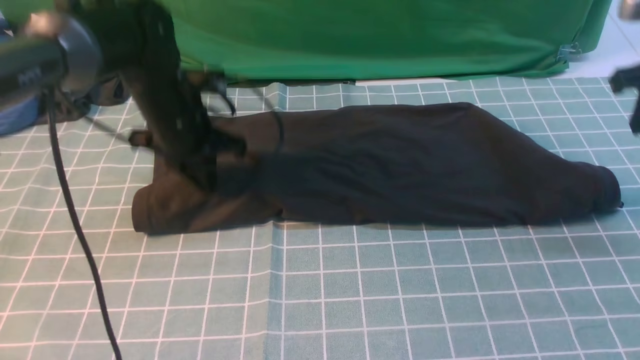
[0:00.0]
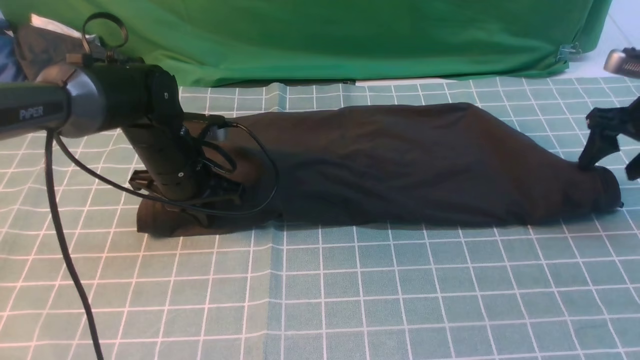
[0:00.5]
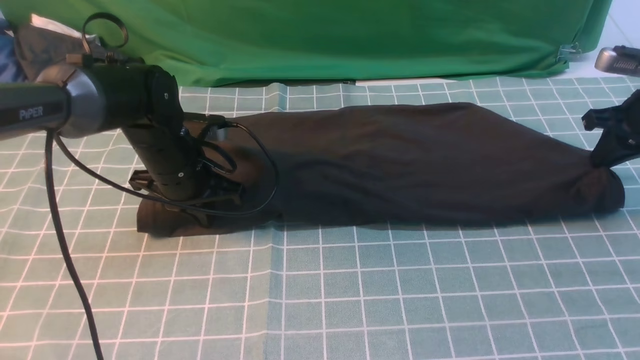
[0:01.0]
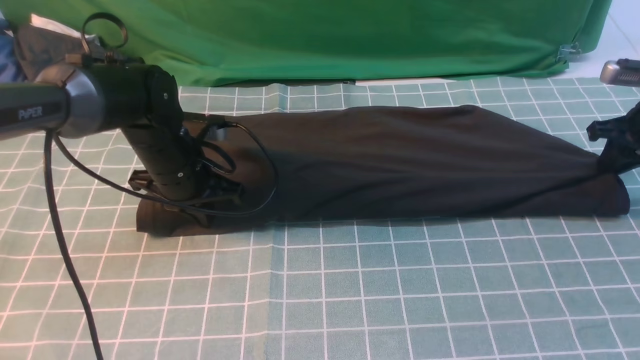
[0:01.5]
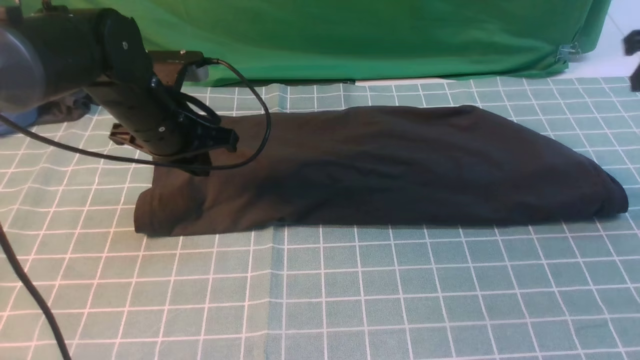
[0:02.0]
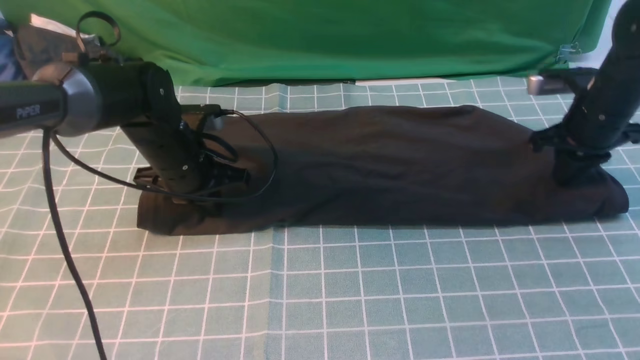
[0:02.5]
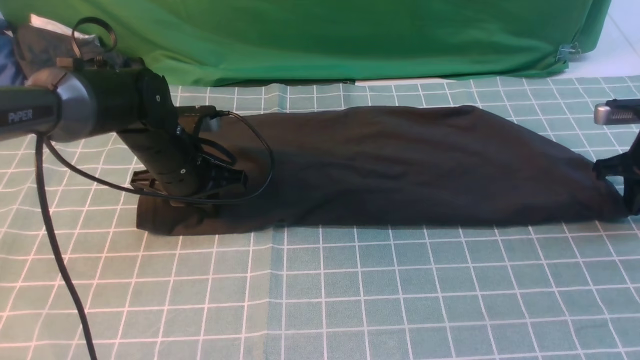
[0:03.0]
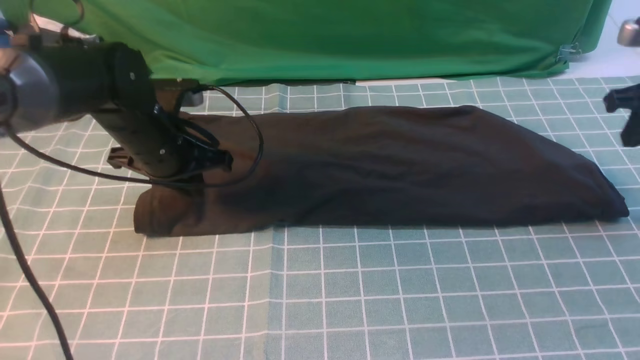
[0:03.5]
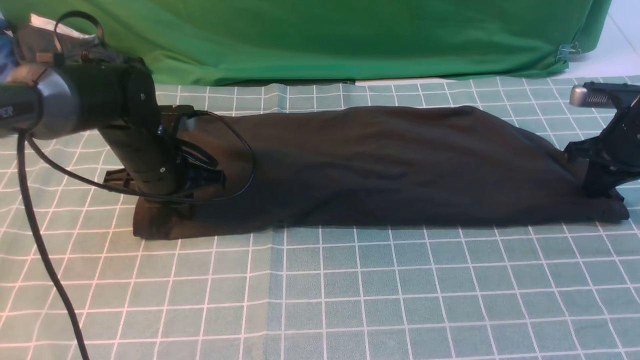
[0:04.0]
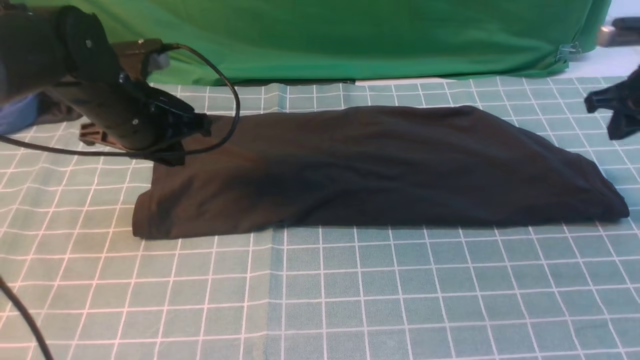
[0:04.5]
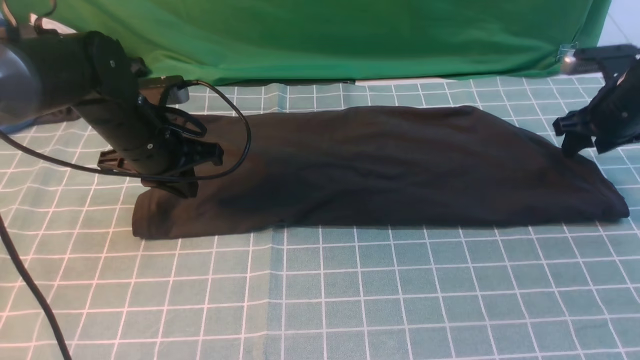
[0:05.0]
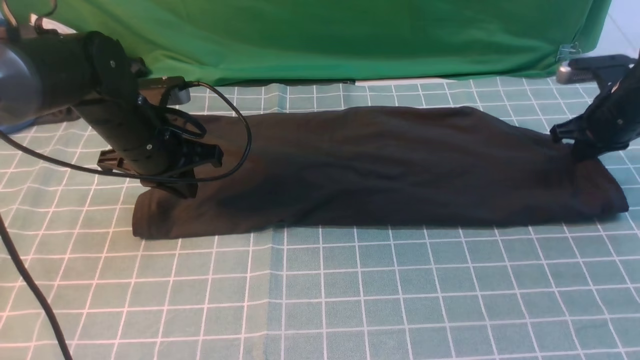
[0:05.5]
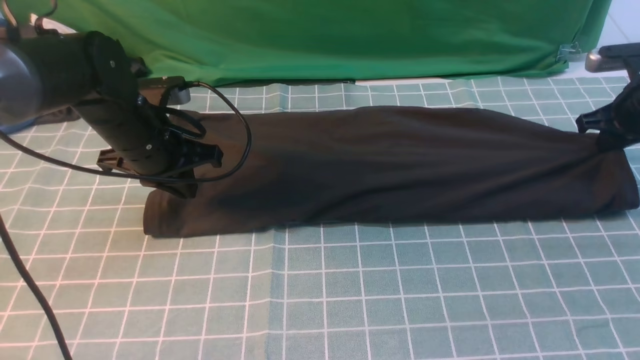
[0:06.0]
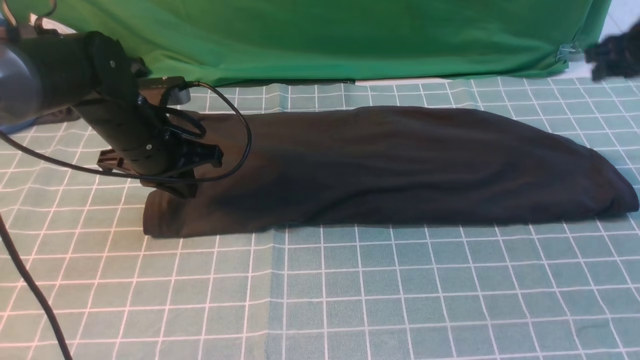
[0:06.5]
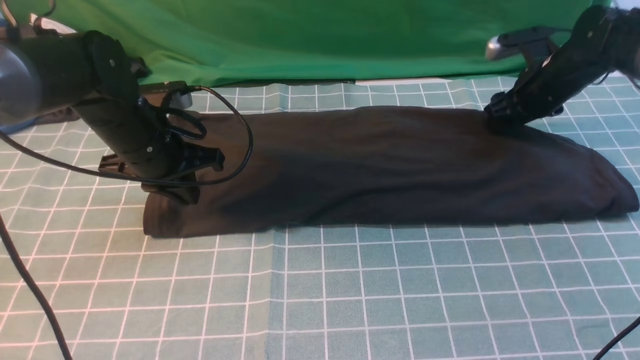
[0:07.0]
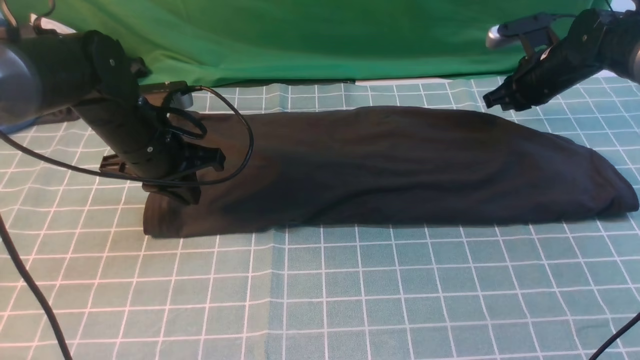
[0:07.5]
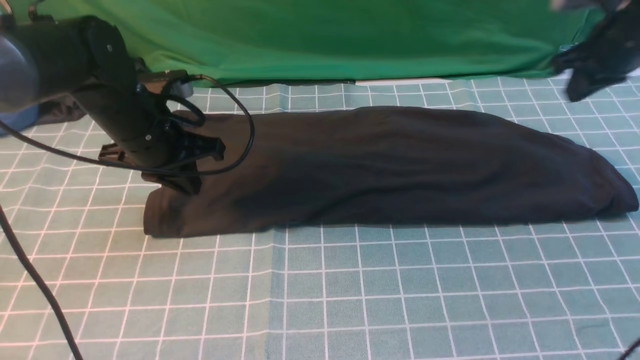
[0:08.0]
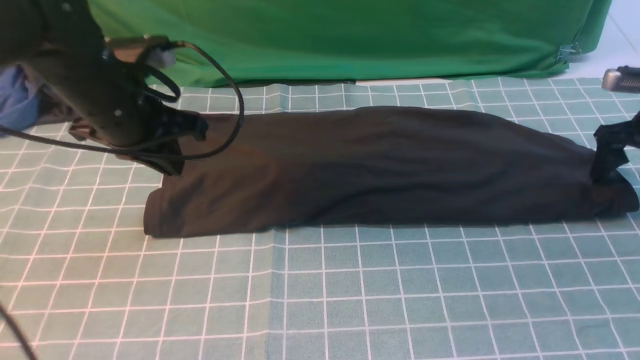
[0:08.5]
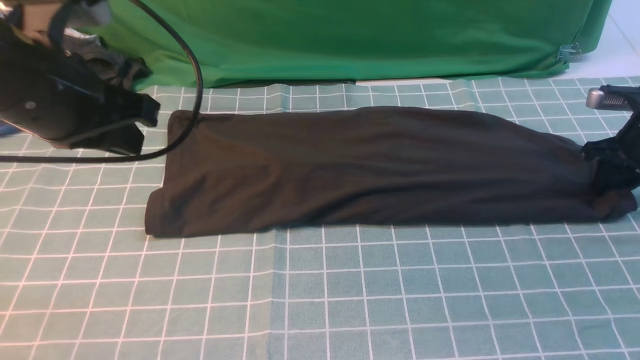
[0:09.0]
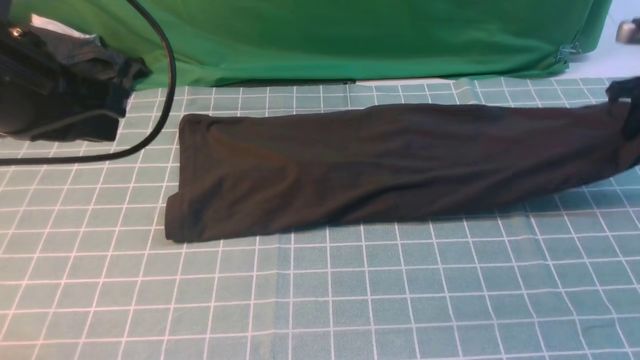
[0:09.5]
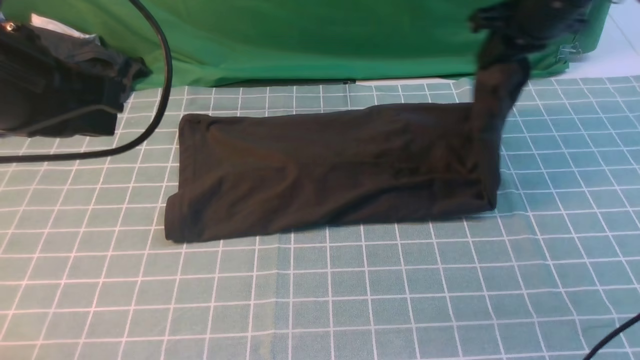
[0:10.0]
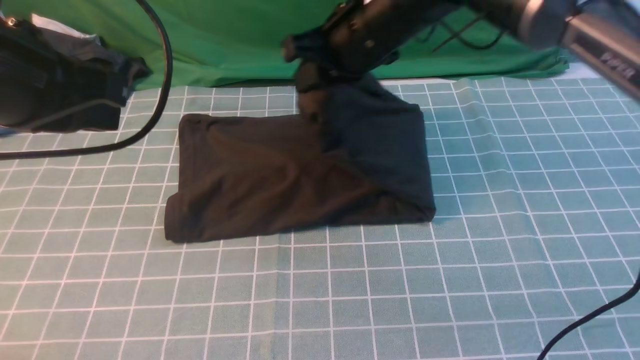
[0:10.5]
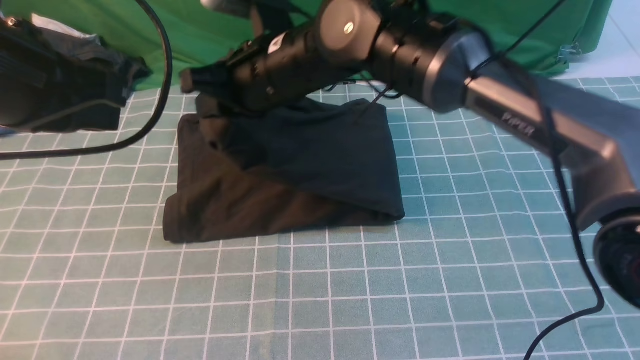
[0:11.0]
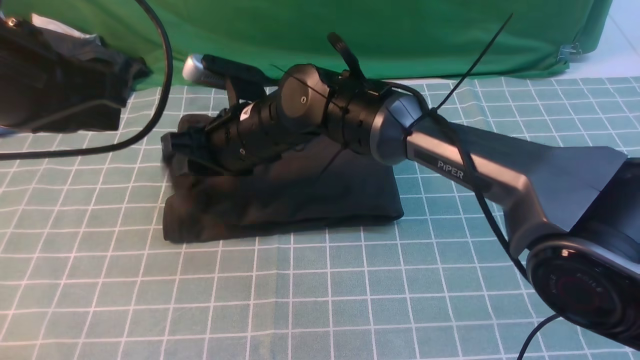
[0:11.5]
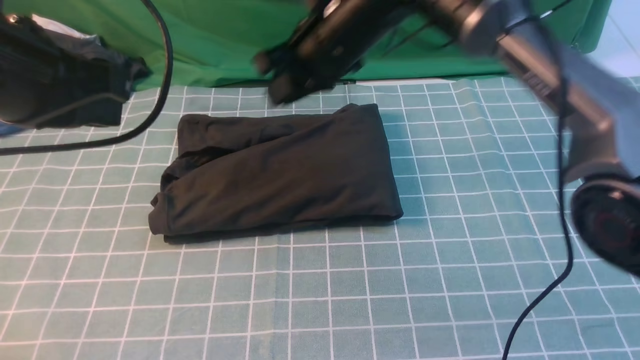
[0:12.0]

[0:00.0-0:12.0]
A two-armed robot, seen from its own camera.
Step, 0:00.0 to 0:09.0: use the right arm to clamp the right edge of the fabric.
Step, 0:09.5 to 0:11.5: use the right arm to drag the right edge of the fabric to the left and folds it over the left edge.
0:00.0 to 0:02.0: The right gripper moves roughly 10 cm downward and comes back, and opens, then closes again.
0:02.0 to 0:04.0: The left gripper ends up approximately 5 cm from where it was. The right gripper swings up and down, approximately 10 cm each way, with 2 reversals.
0:04.0 to 0:06.0: The right gripper opens up.
0:06.0 to 0:08.0: The right gripper moves upward, about 5 cm, travels to the left and back again, approximately 10 cm each way, and opens, then closes once more.
0:08.0 to 0:10.0: The right gripper shifts approximately 15 cm to the left and upward, and opens and closes again; the left gripper shifts some 20 cm upward and backward.
0:10.0 to 0:12.0: The right gripper is displaced to the left by some 20 cm, and opens, then closes once more.

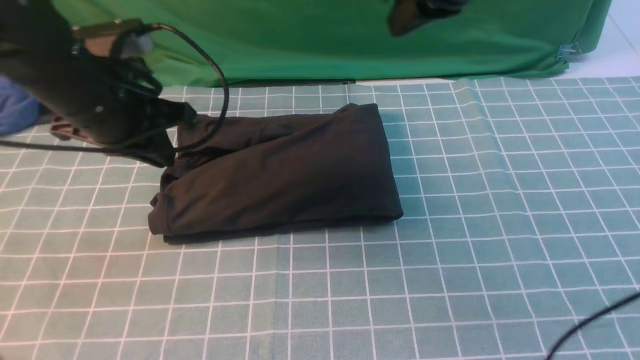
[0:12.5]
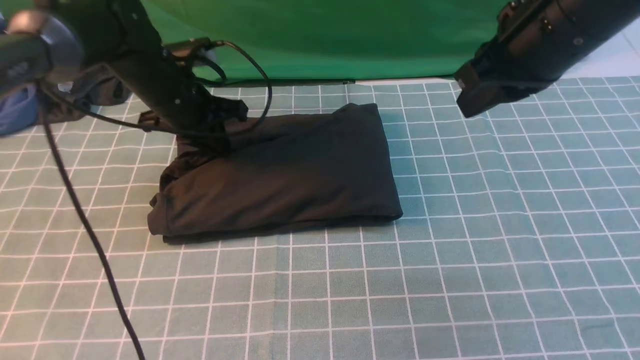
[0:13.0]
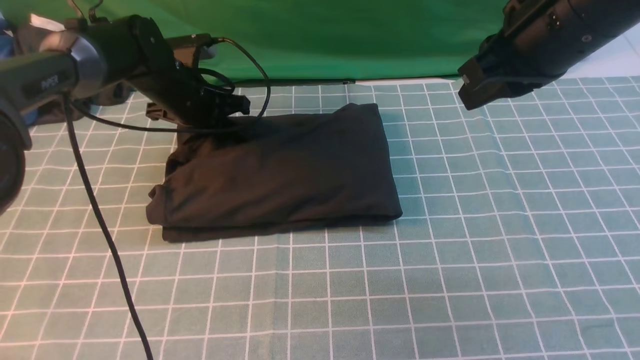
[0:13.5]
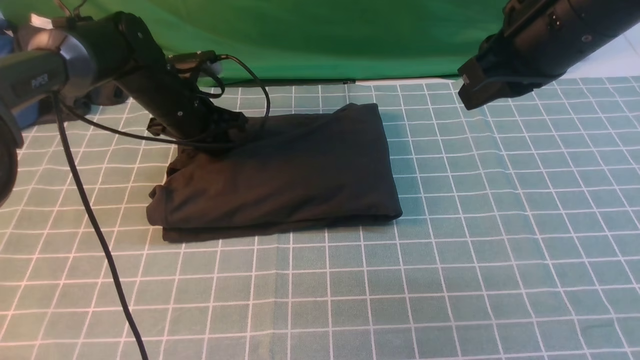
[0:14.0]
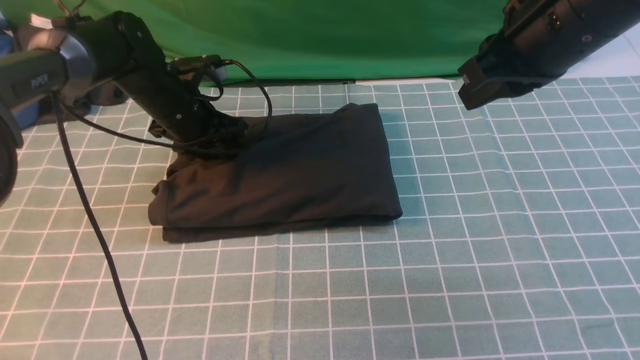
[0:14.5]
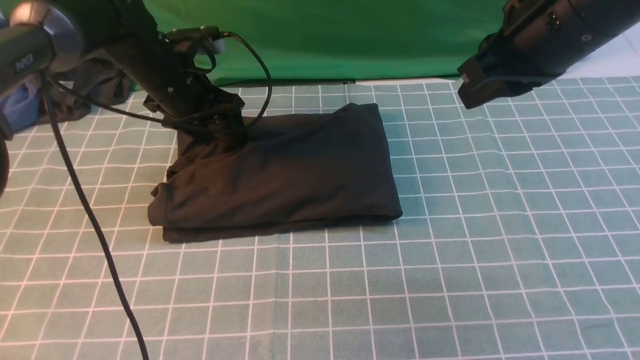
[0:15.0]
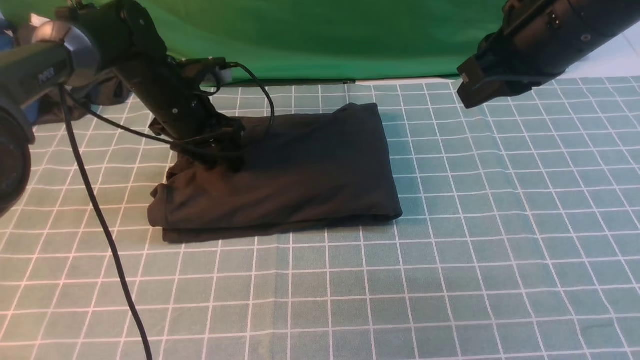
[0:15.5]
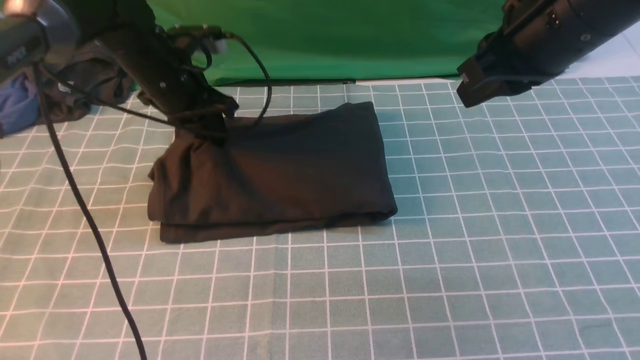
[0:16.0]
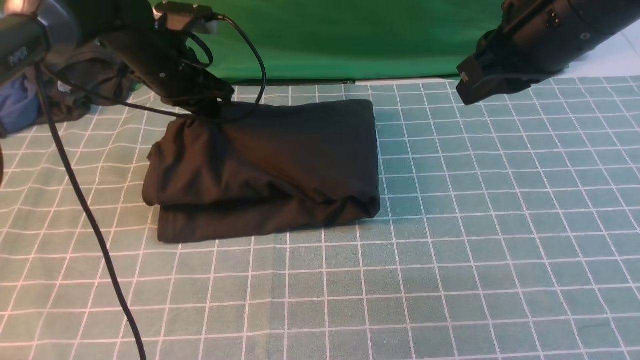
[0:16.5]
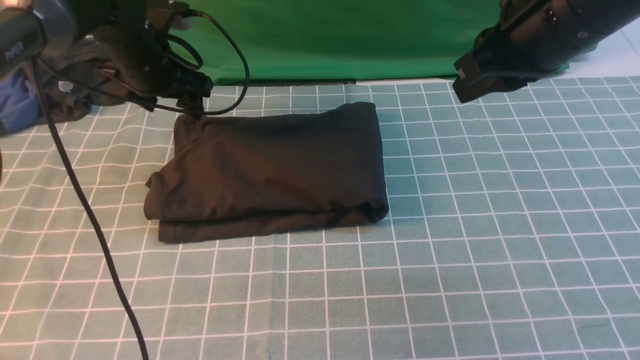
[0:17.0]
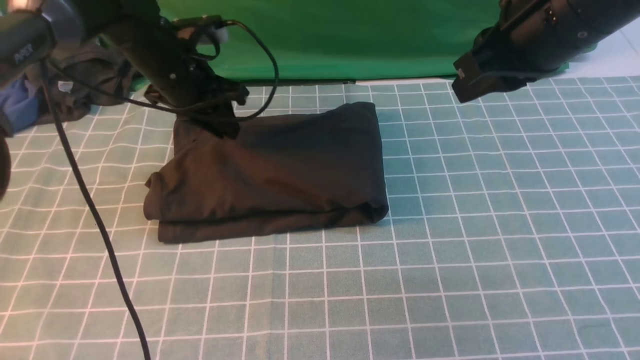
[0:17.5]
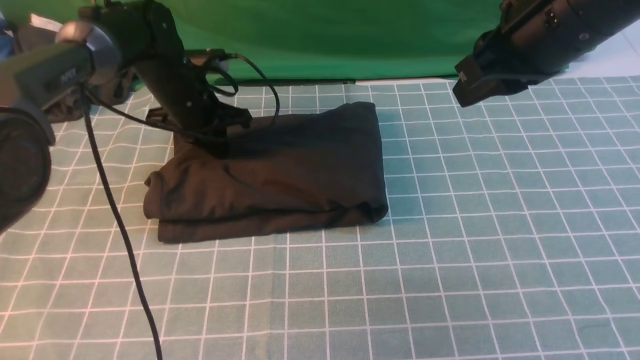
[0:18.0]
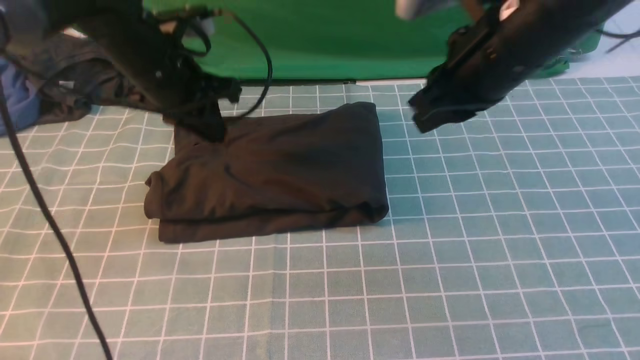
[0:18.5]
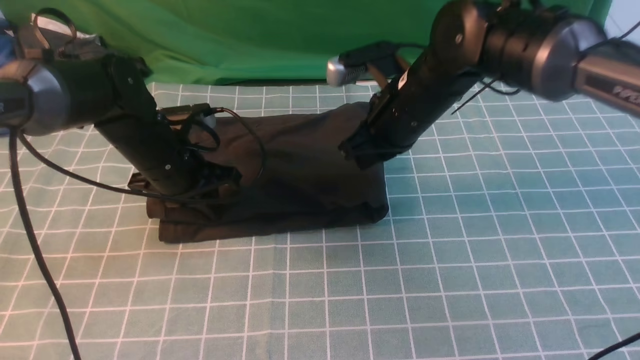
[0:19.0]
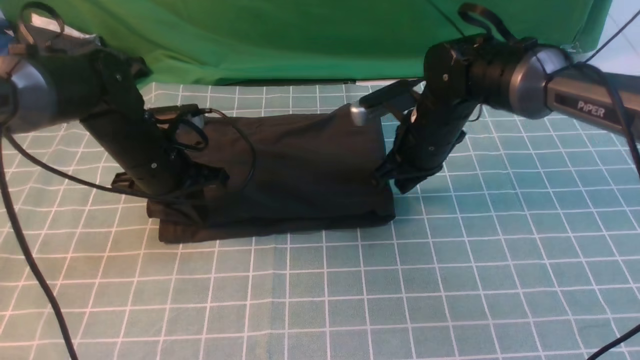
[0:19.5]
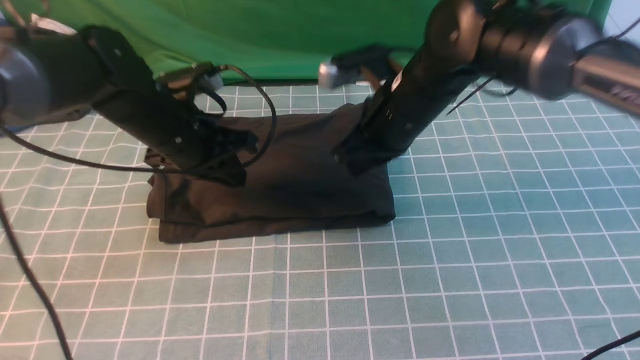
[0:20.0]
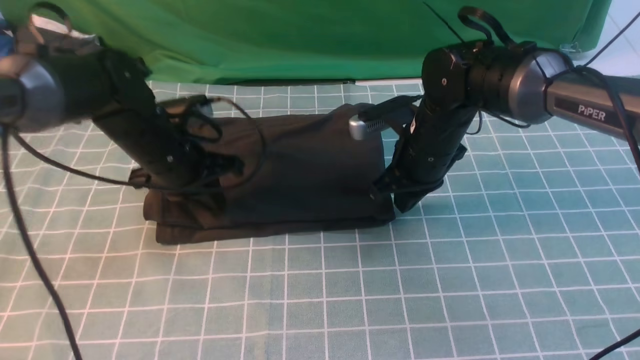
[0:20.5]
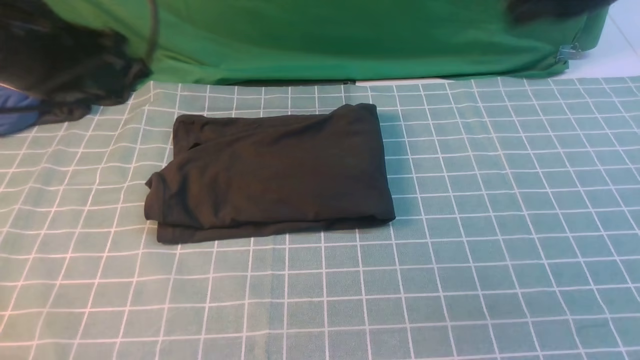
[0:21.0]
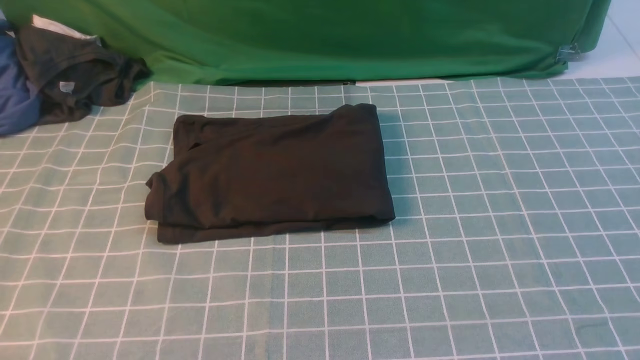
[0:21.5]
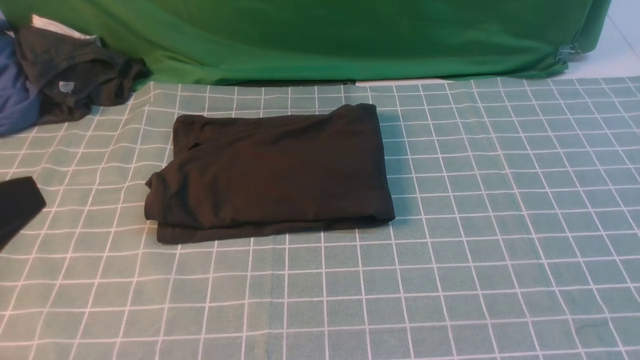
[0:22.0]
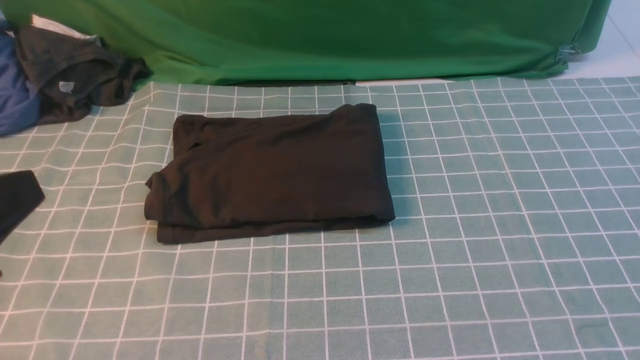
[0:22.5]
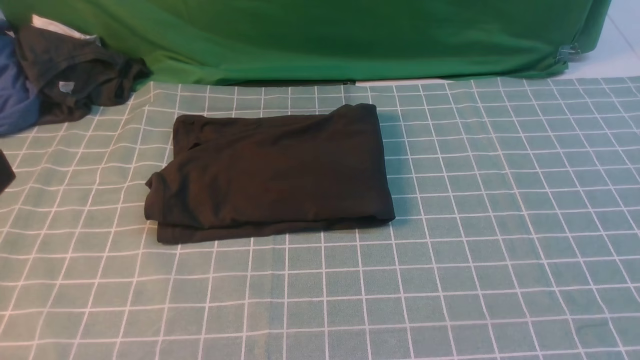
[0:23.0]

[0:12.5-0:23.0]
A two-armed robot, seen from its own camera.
0:12.5 to 0:14.5: The right gripper moves backward, approximately 10 cm. The left gripper is displaced forward and downward by roughly 15 cm, and opens.
0:14.5 to 0:16.5: The left gripper is displaced upward by roughly 5 cm, and closes its fingers.
0:16.5 to 0:19.0: The right gripper travels downward, to the left and forward by roughly 20 cm. Meanwhile the left gripper is displaced backward and downward by some 10 cm, and opens and closes again.
0:19.0 to 0:21.0: The left gripper heads upward and backward, covering approximately 25 cm, while the right gripper goes roughly 30 cm upward, to the right and backward.
0:21.0 to 0:23.0: The right gripper moves backward and to the right, roughly 30 cm, while the left gripper goes roughly 20 cm backward.
